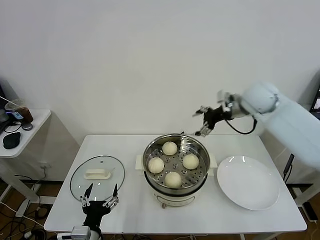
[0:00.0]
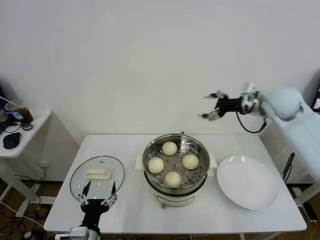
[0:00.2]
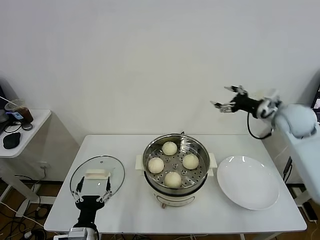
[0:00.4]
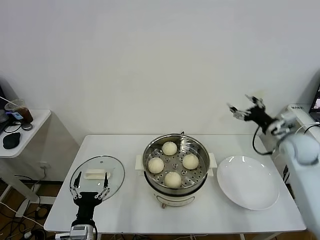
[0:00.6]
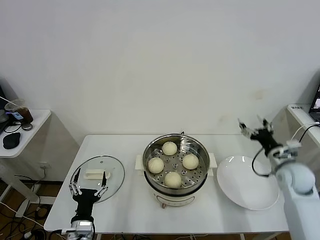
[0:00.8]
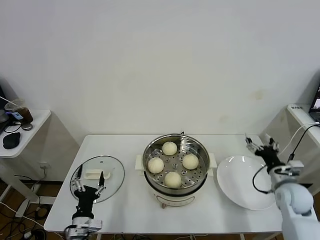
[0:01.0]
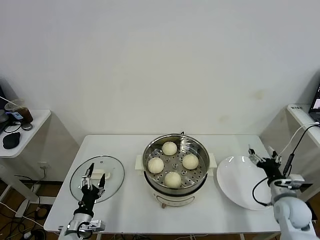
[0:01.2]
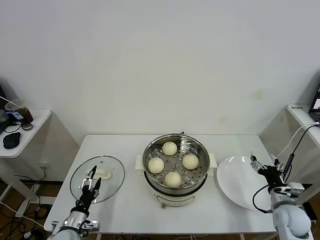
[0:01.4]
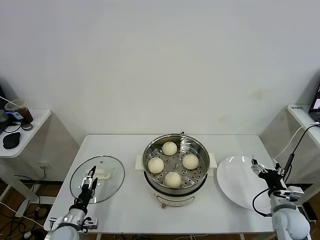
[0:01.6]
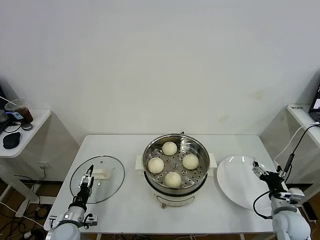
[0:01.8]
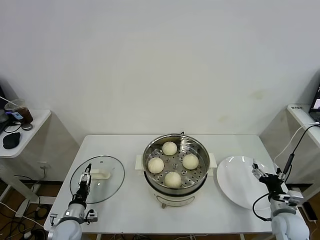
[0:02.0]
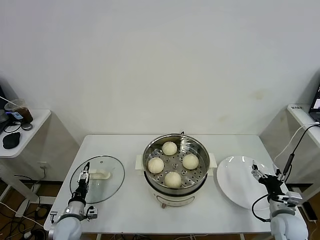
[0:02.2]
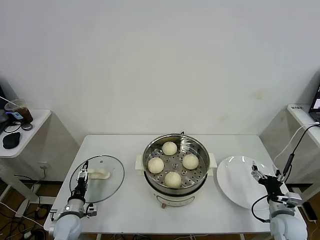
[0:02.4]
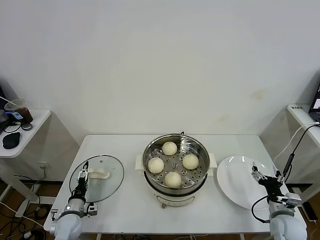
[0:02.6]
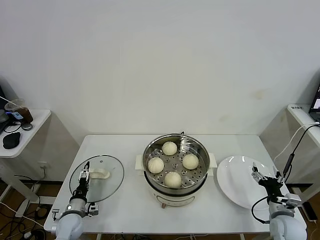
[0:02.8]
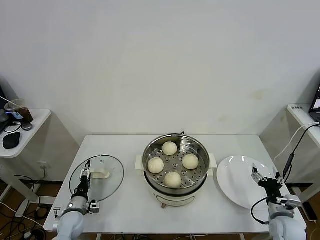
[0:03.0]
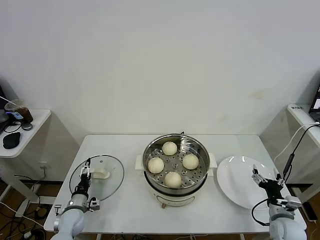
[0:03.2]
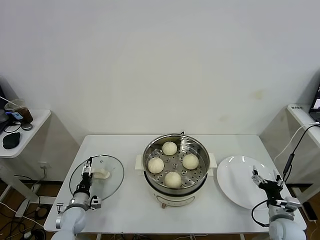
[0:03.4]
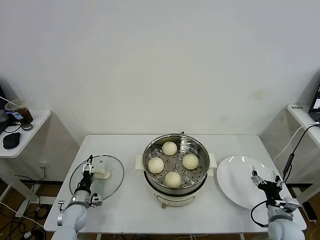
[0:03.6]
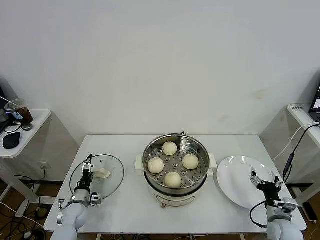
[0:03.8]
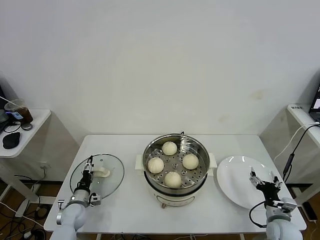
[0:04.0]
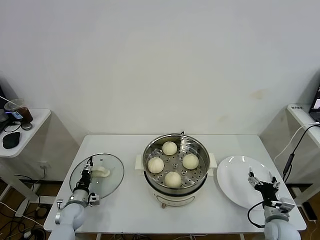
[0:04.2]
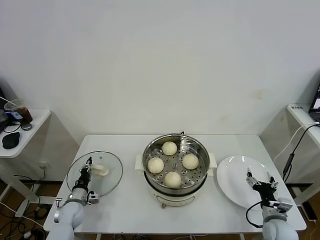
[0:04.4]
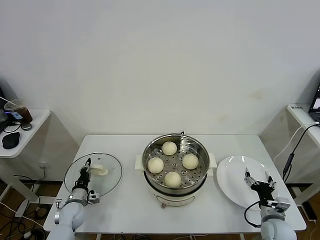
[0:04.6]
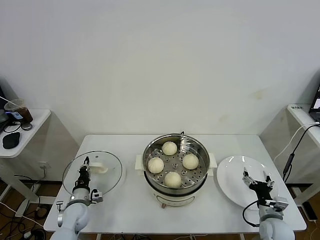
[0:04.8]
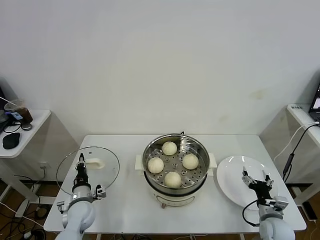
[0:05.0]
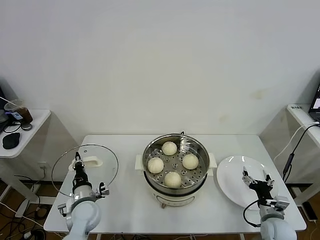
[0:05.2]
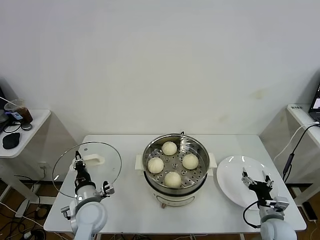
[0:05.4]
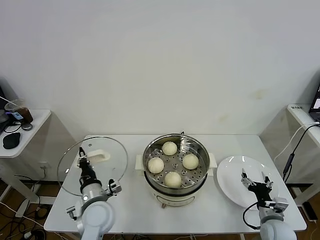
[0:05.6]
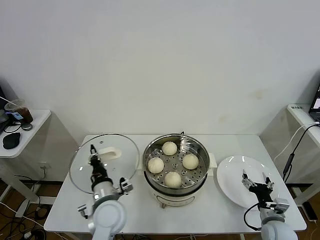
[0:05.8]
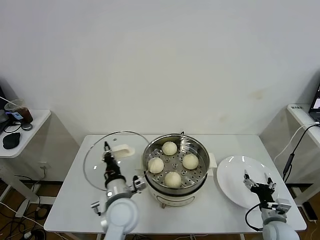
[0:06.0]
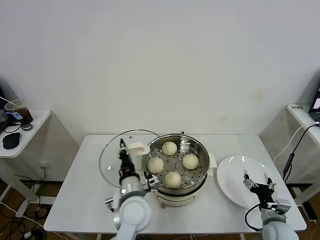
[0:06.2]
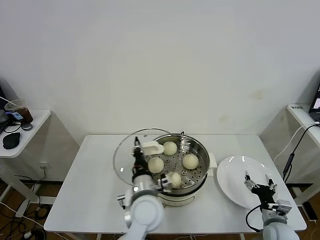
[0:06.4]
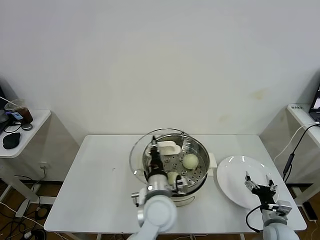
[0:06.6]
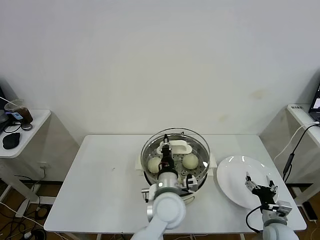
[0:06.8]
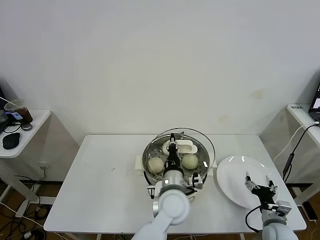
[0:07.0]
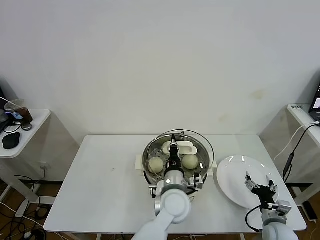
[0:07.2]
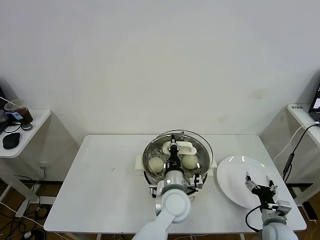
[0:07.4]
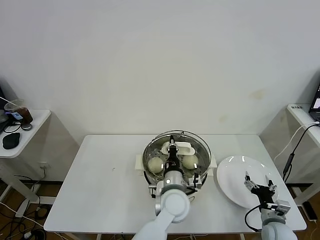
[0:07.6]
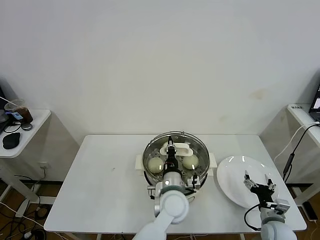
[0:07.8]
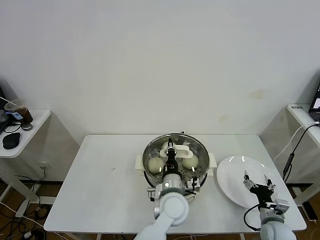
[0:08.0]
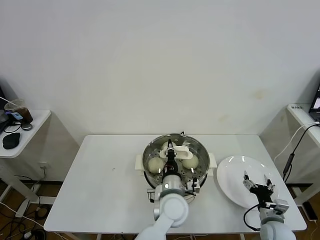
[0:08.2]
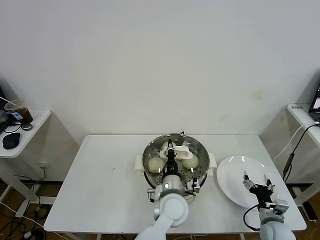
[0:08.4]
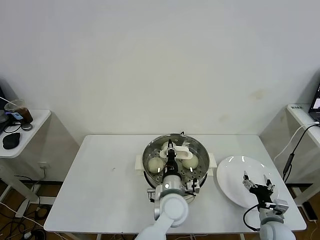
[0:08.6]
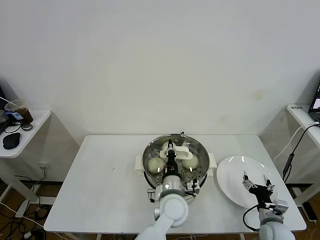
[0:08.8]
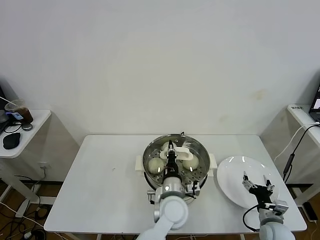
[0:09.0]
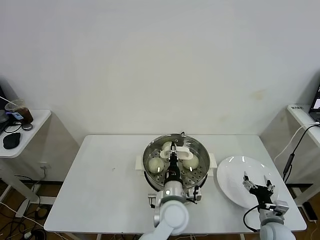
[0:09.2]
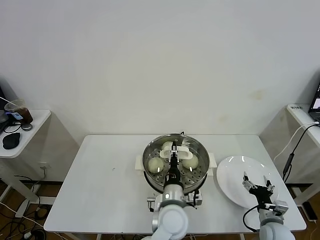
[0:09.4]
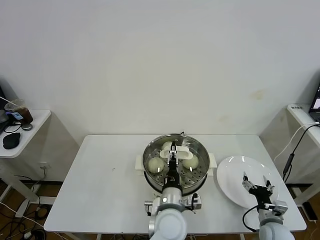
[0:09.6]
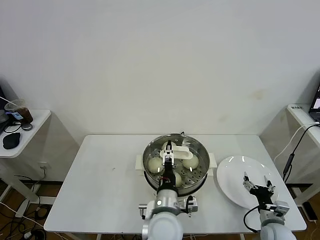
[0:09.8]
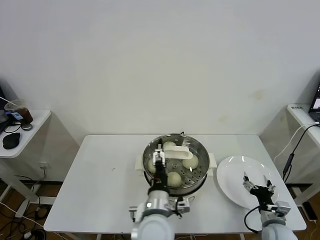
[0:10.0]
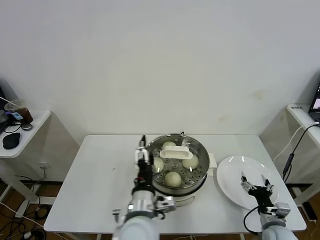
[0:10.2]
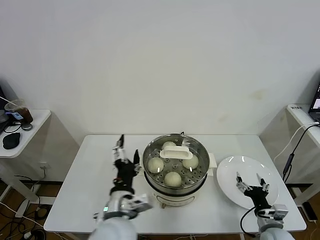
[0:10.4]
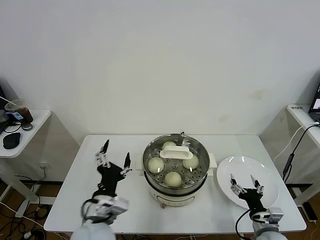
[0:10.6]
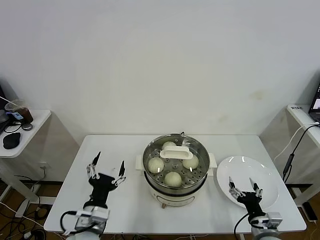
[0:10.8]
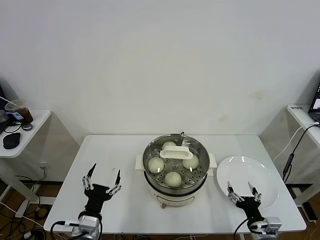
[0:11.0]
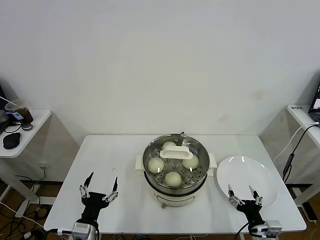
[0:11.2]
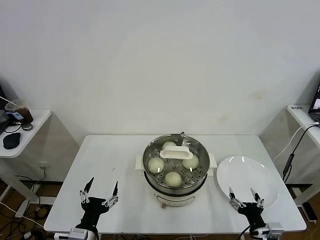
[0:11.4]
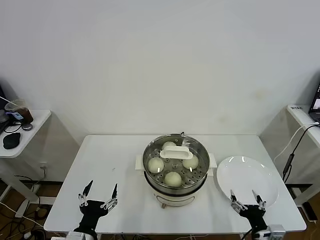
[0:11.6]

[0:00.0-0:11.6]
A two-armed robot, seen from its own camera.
Task of the whole recording: take steamed baozi put them in steamer.
Step, 0:00.0 to 0:04.6: Grasp the pot lid with left gripper.
Step, 0:04.8 to 0:09.6: Place the pot lid on the steamer with left gripper.
0:00.0 to 0:01.4: The left gripper heads downward, to the left and forward, covering roughly 15 cm, while the right gripper goes approximately 40 cm downward and backward.
0:01.4 to 0:02.8: The left gripper goes approximately 5 cm forward.
0:02.8 to 0:04.4: The left gripper is displaced forward by some 5 cm, and closes its fingers.
0:04.4 to 0:05.8: The left gripper is displaced to the right and upward by roughly 25 cm.
0:05.8 to 0:07.2: The left gripper shifts about 20 cm to the right.
0:07.2 to 0:08.8: The grippers make only small movements.
0:08.8 to 0:10.2: The left gripper moves backward, to the left and upward, approximately 10 cm, and opens its fingers.
0:10.2 to 0:11.6: The left gripper is displaced to the left and backward by approximately 20 cm. Meanwhile the right gripper goes some 10 cm backward and to the left.

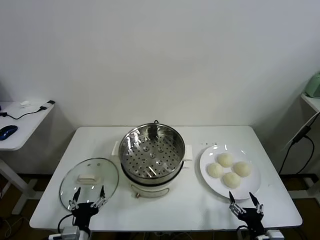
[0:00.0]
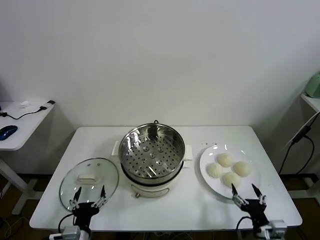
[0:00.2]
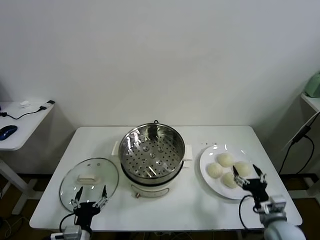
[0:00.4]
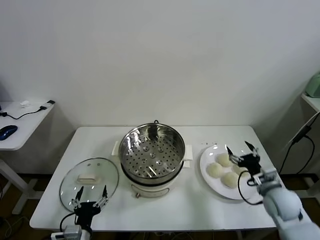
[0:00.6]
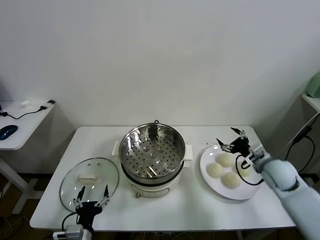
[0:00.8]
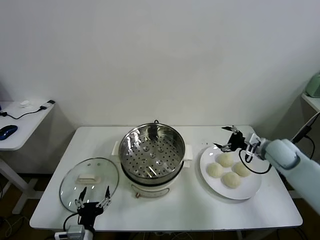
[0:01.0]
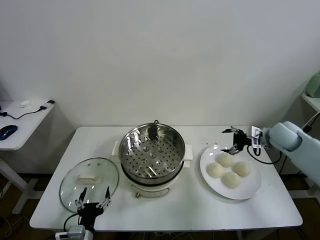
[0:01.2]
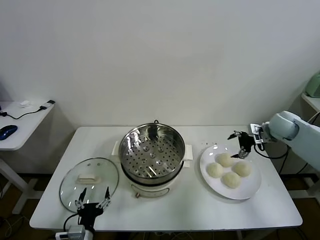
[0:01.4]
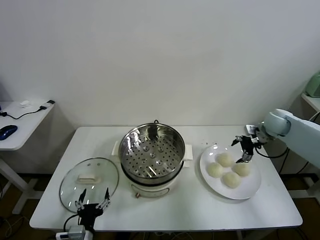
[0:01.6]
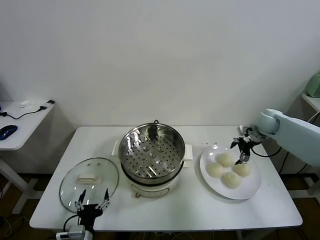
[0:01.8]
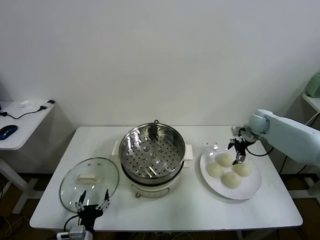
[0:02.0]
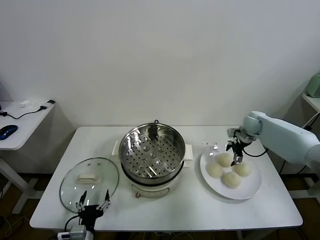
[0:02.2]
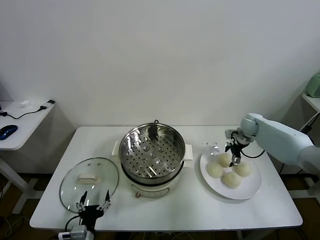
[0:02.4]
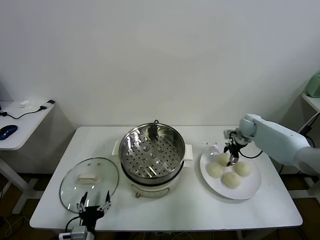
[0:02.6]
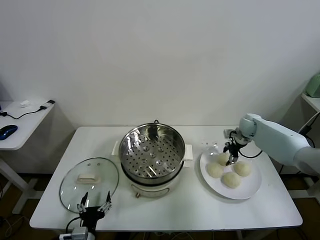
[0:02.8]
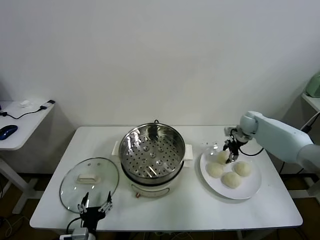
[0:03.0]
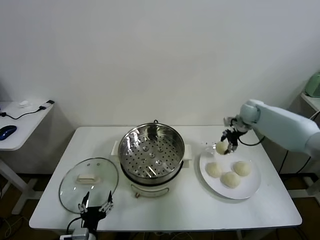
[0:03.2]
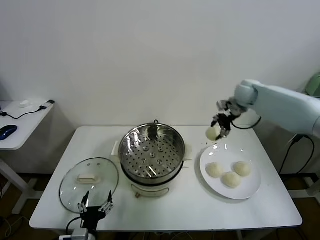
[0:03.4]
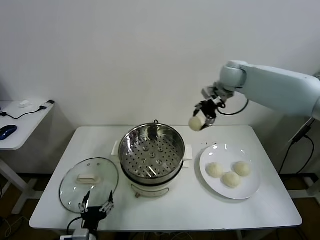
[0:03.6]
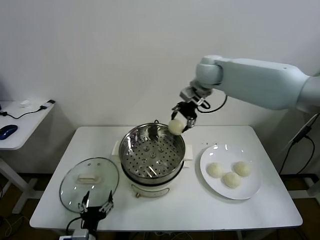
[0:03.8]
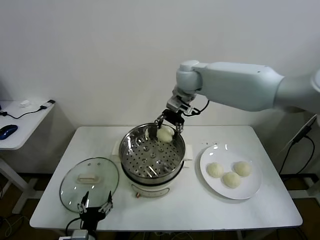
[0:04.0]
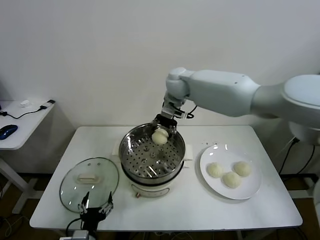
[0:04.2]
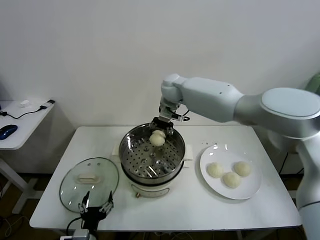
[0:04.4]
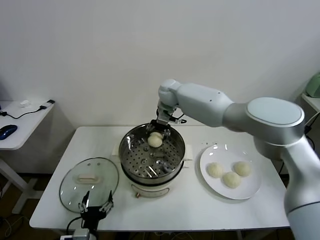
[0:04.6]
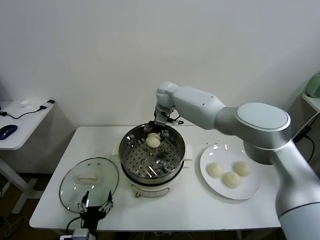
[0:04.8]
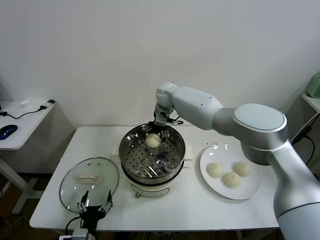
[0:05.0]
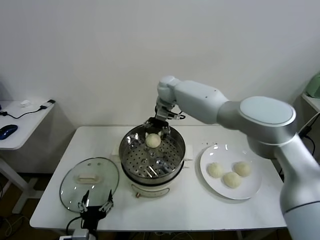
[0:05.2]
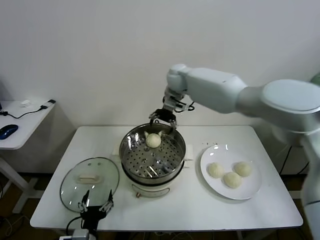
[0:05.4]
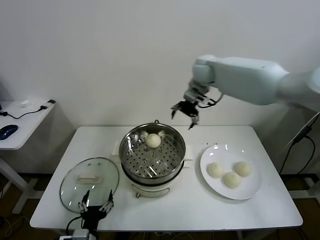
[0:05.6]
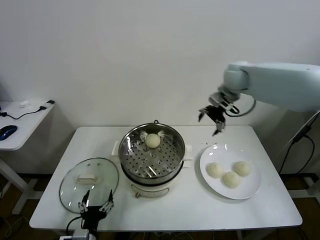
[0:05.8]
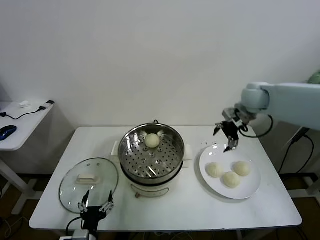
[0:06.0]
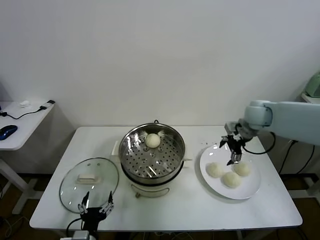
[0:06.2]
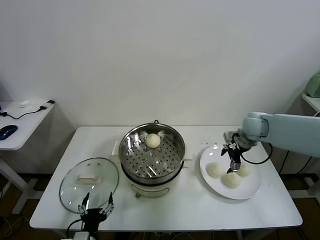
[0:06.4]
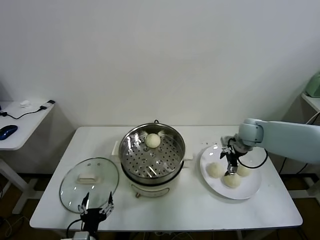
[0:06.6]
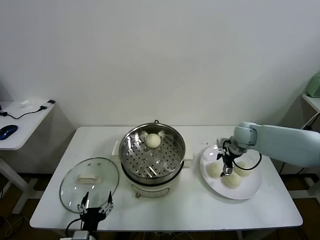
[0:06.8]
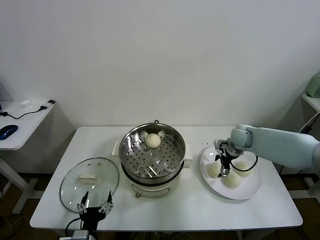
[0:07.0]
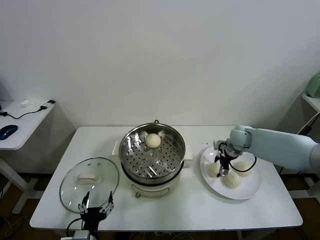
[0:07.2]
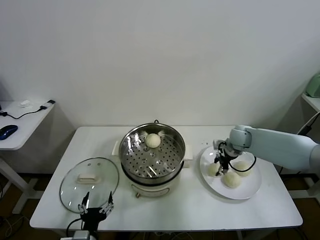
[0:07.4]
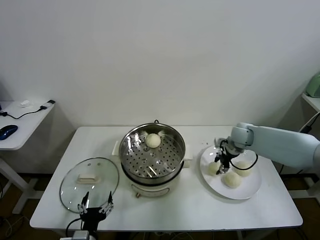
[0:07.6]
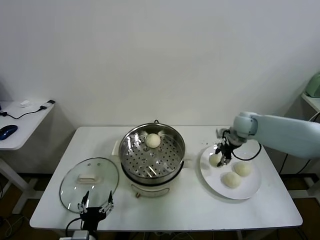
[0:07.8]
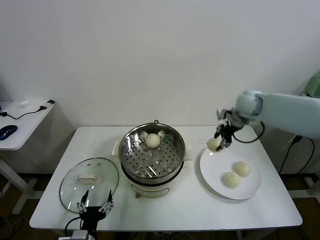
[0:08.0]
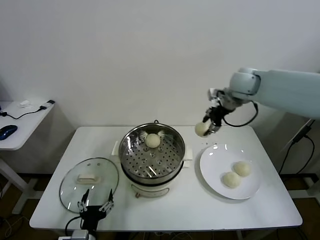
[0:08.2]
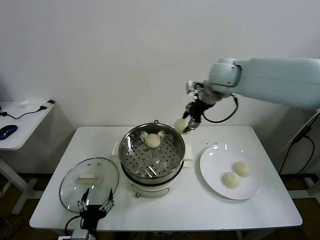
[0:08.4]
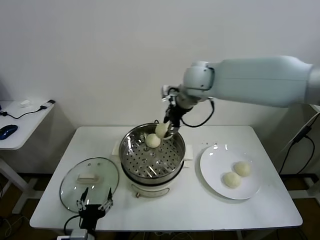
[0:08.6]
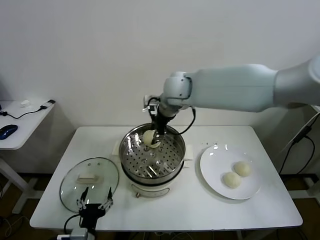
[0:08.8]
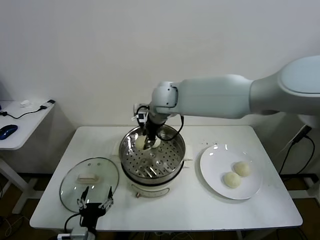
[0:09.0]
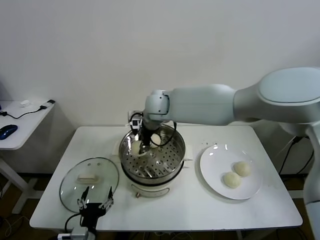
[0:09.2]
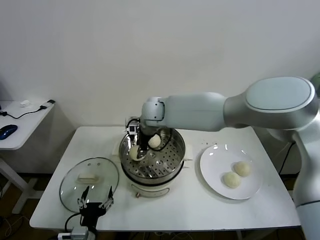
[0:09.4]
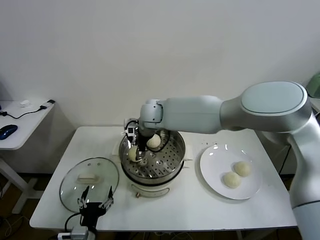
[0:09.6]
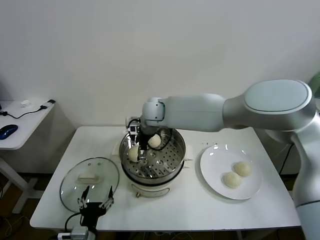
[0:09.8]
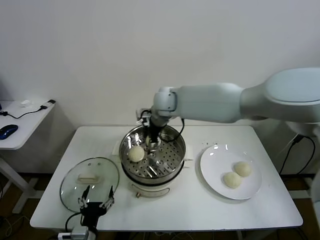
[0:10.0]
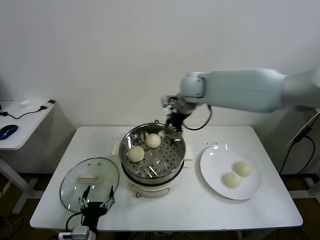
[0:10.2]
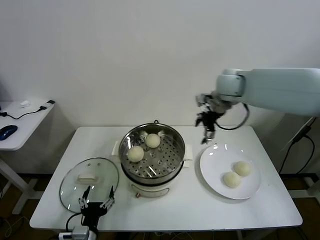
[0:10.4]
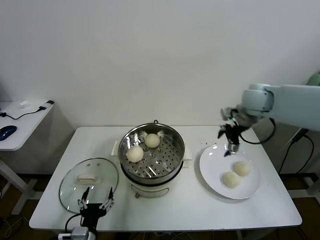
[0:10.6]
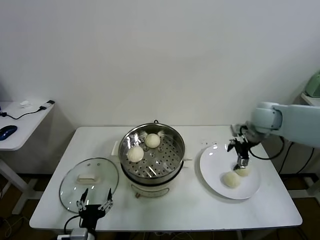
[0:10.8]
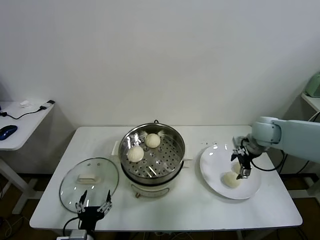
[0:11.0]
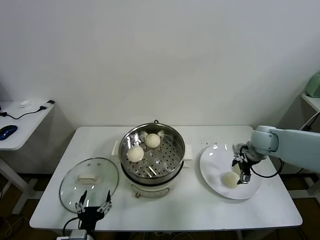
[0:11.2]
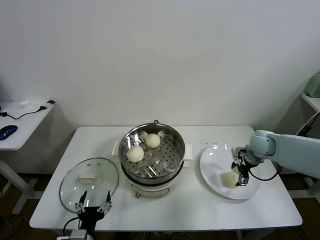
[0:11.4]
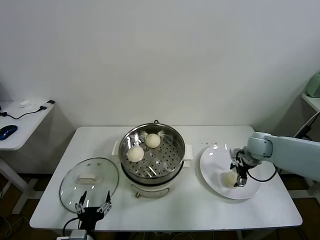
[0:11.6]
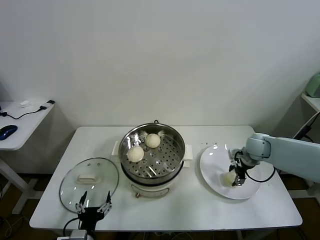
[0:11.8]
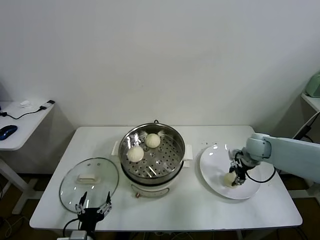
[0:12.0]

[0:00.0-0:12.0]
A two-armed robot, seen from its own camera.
Task of the whole recording: take steamed baozi put them in steamer.
Step, 0:00.0 to 0:02.8: Grasp the baozi in the plate with right gripper.
Step, 0:03.0 to 0:05.0: Place the baozi on the steamer with right gripper.
Step, 0:05.2 to 0:07.4: Grasp the baozi in the plate with right gripper.
Step, 0:07.6 to 0:09.6: Place the baozi on the steamer with right gripper.
Step, 0:10.0 to 0:11.8: Grasp the baozi in the plate with right gripper.
0:01.6 to 0:03.0: The right gripper heads forward, covering roughly 5 cm, and closes its fingers.
0:03.0 to 0:04.4: The right gripper heads to the left, covering some 35 cm.
0:04.4 to 0:06.0: The right gripper moves to the right, about 30 cm, and opens its fingers.
0:06.0 to 0:07.6: The right gripper shifts approximately 15 cm downward, and closes its fingers.
0:07.6 to 0:09.0: The right gripper travels to the left and upward by approximately 35 cm.
0:09.0 to 0:10.4: The right gripper is displaced to the right by approximately 25 cm, and opens its fingers.
0:10.4 to 0:12.0: The right gripper goes about 25 cm downward and to the right, and closes up.
